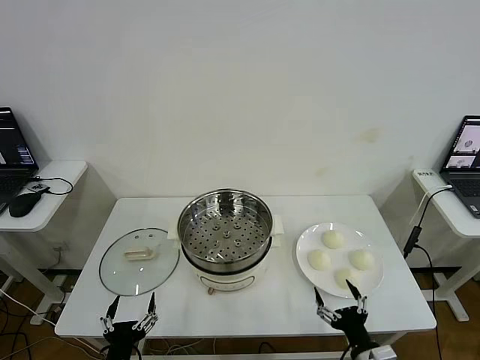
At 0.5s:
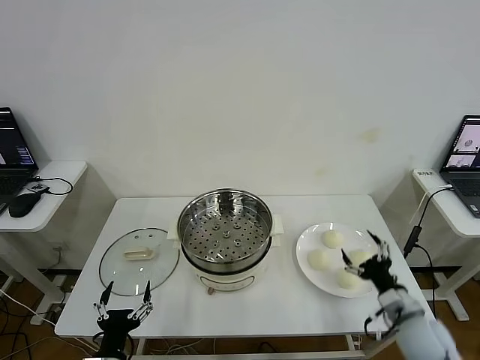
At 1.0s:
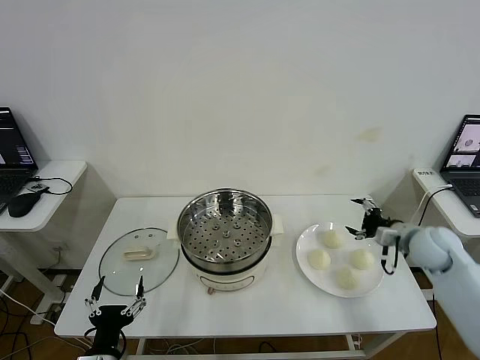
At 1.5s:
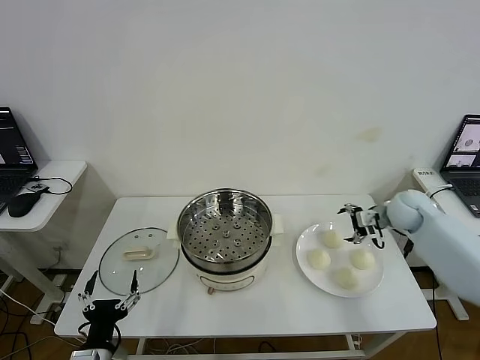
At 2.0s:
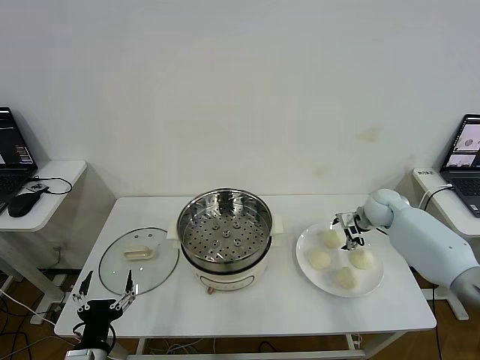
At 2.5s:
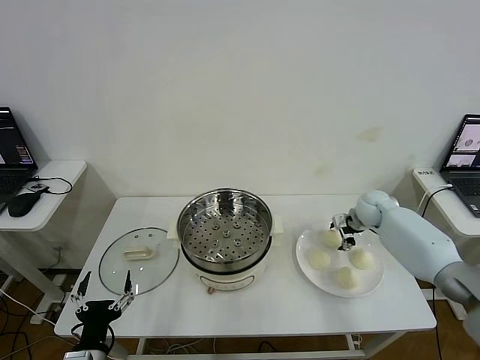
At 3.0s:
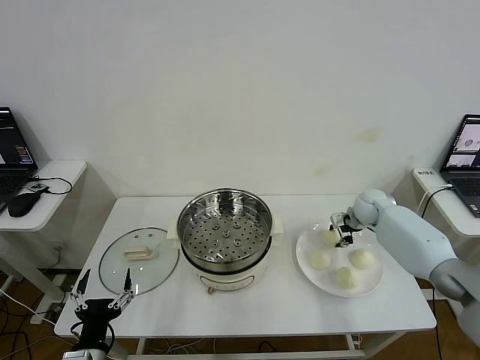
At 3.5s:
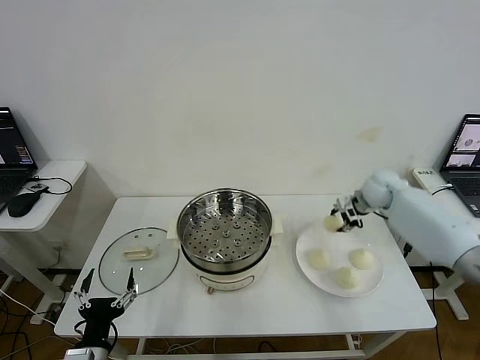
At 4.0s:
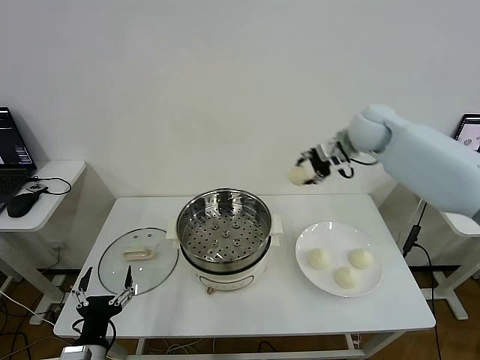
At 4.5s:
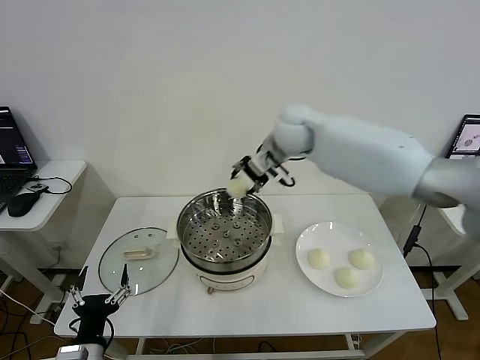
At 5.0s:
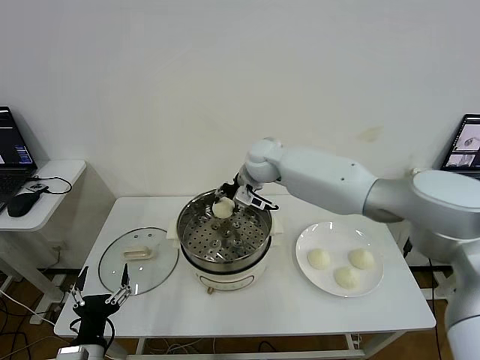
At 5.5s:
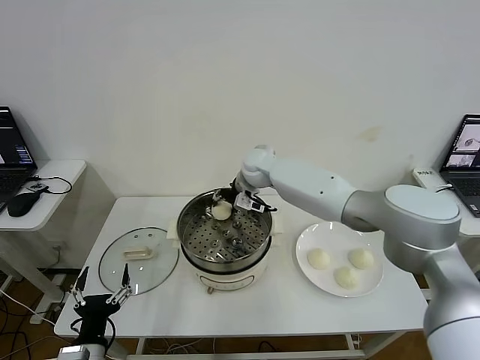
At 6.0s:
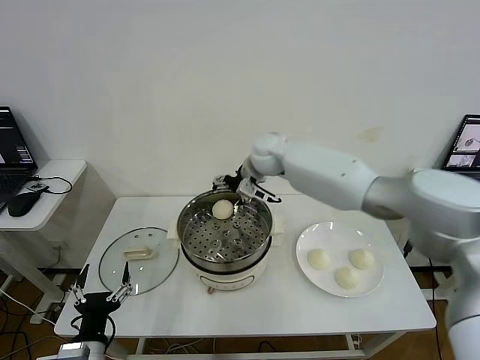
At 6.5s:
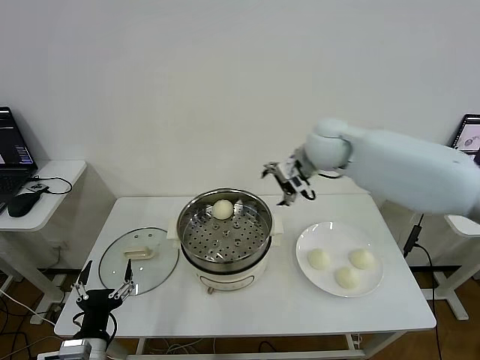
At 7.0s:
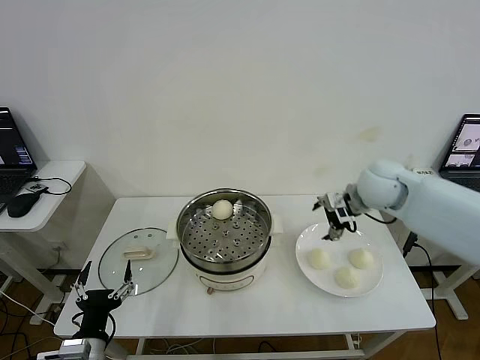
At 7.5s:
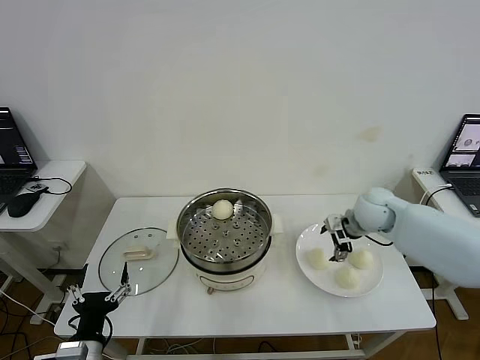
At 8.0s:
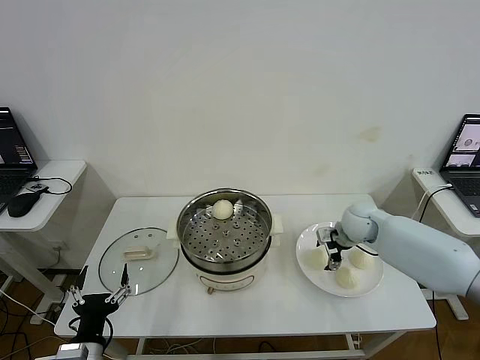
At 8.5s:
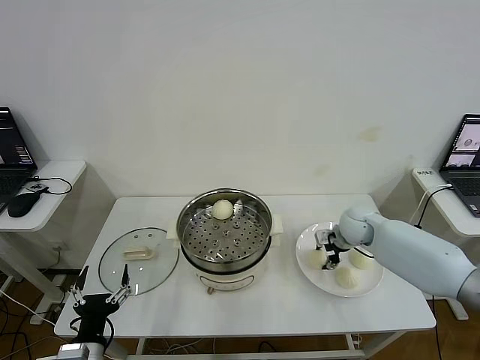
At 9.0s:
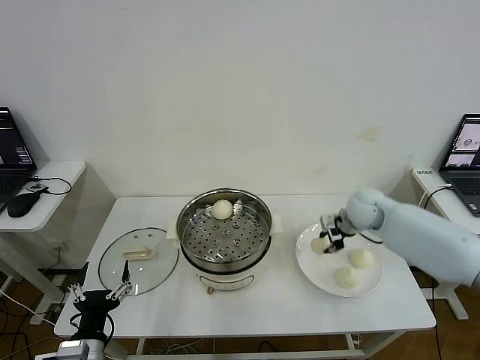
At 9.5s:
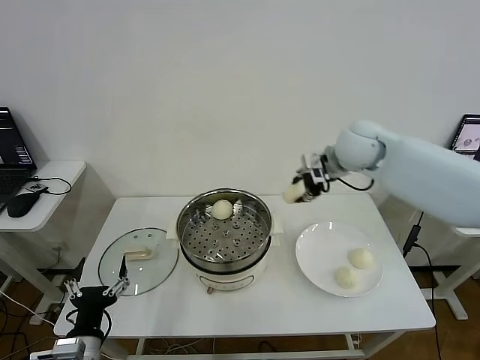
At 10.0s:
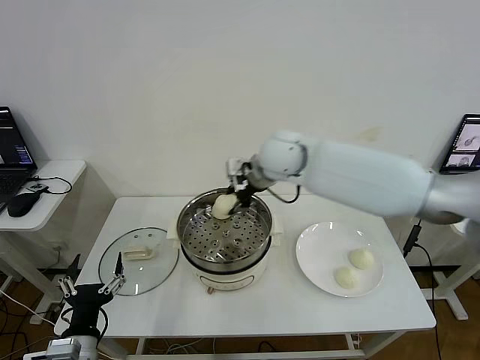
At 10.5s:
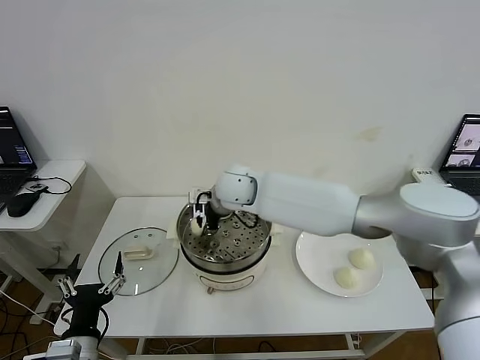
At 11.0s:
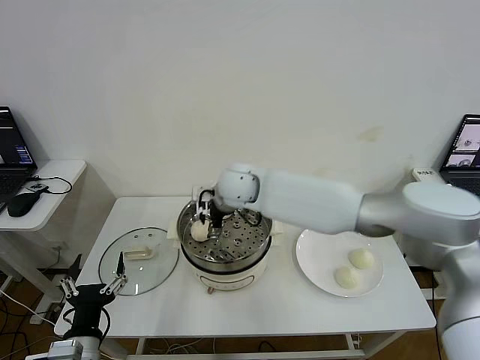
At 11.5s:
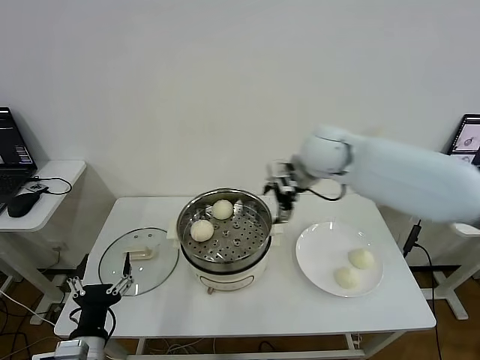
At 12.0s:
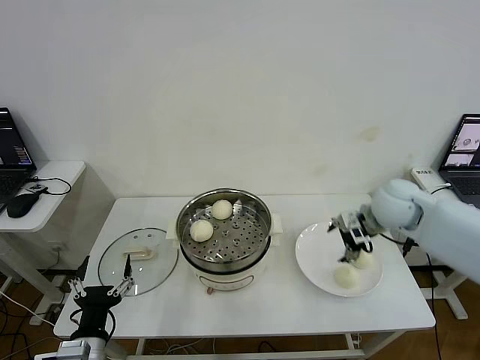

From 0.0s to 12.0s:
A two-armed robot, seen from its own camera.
Step, from 0.0s to 3.0s: Grasp the baozi in the plate with right gripper.
Step, from 3.5s to 5.5s: Place the baozi on the steamer with right gripper.
Step, from 6.0s to 8.5s: Grasp the baozi in the plate with right gripper.
Step, from 9.0s to 10.5s: Place the baozi on the steamer with right gripper.
From 2.0s to 4.0s: The right gripper is displaced upward and to the left by roughly 30 cm, and closes its fingers.
From 4.0s to 6.0s: The right gripper is displaced to the left and downward by approximately 15 cm, and opens.
From 6.0s to 8.0s: The right gripper is displaced to the right and downward by approximately 25 cm.
From 8.0s to 10.0s: The right gripper goes approximately 30 cm to the left and upward, and closes.
From 10.0s to 12.0s: The right gripper goes approximately 30 cm to the right, and opens up.

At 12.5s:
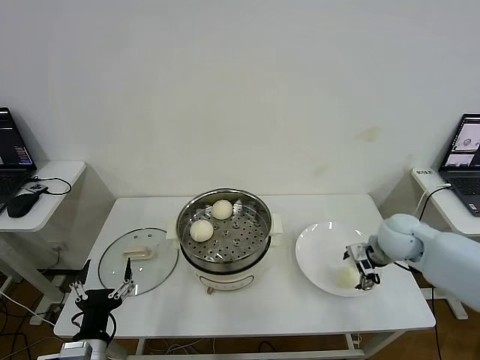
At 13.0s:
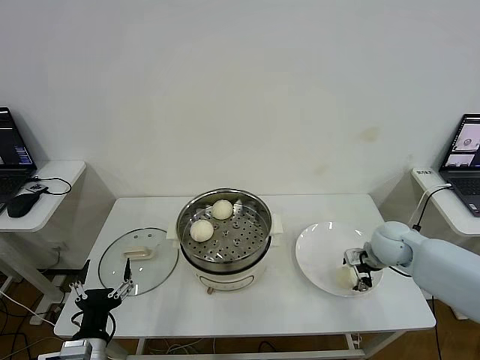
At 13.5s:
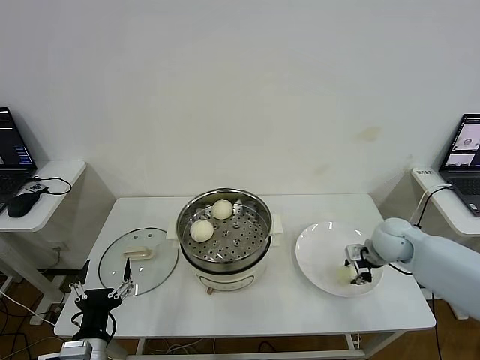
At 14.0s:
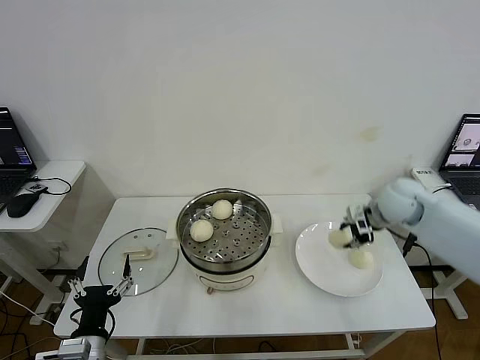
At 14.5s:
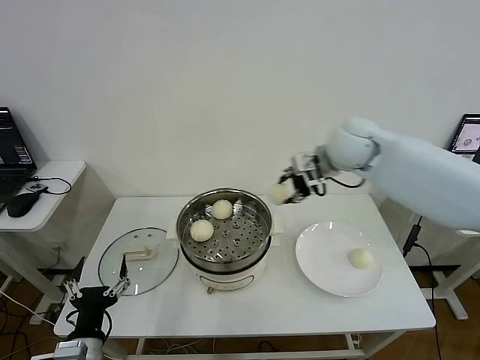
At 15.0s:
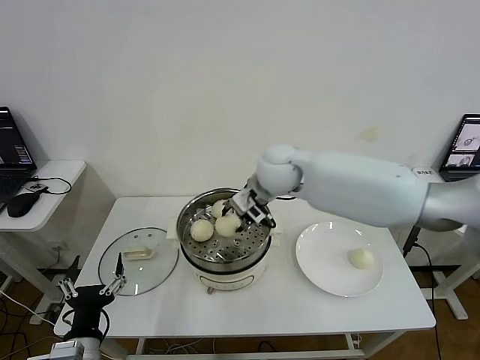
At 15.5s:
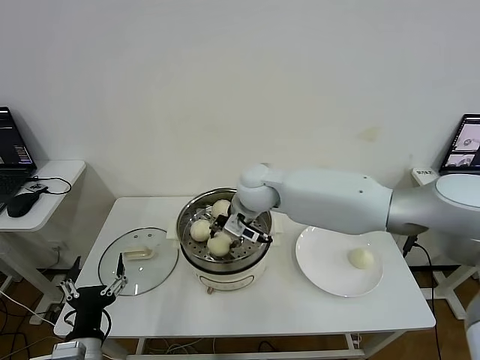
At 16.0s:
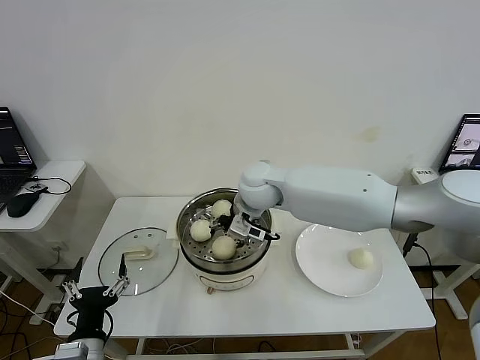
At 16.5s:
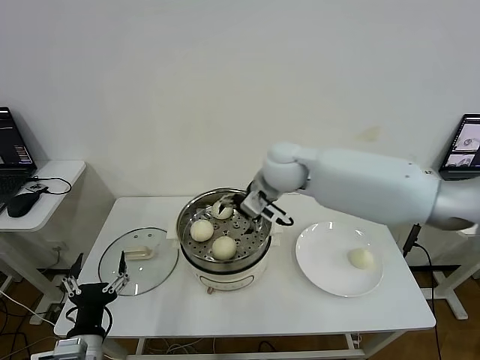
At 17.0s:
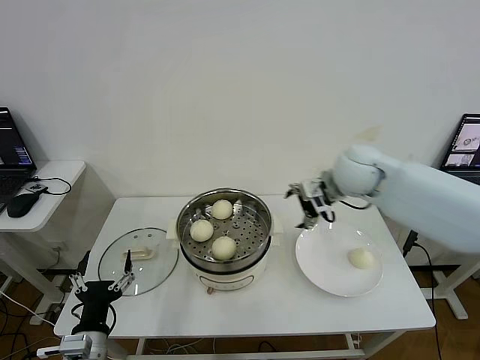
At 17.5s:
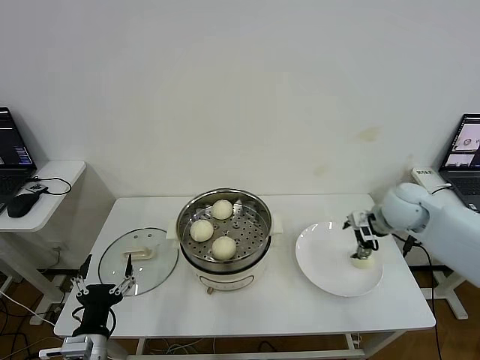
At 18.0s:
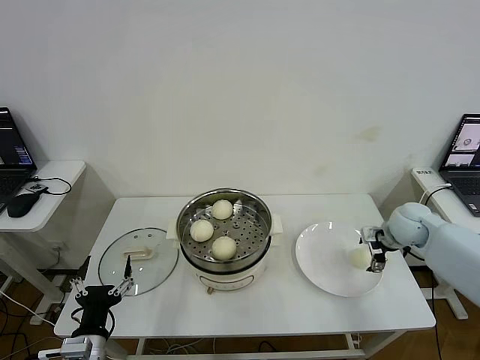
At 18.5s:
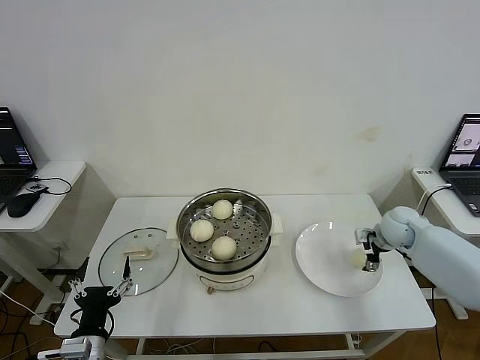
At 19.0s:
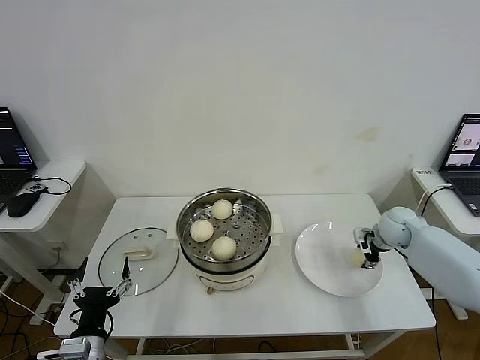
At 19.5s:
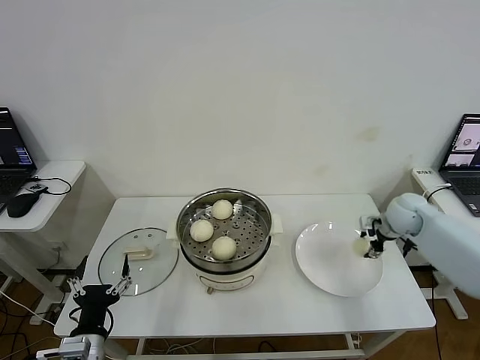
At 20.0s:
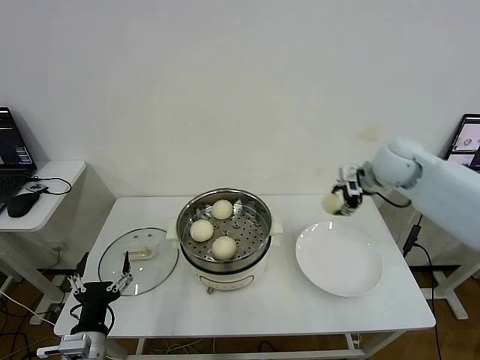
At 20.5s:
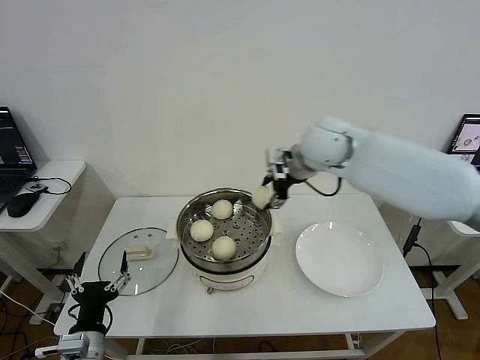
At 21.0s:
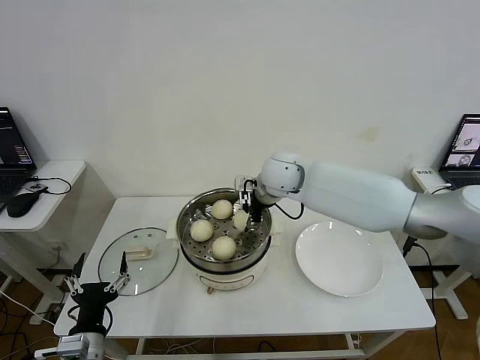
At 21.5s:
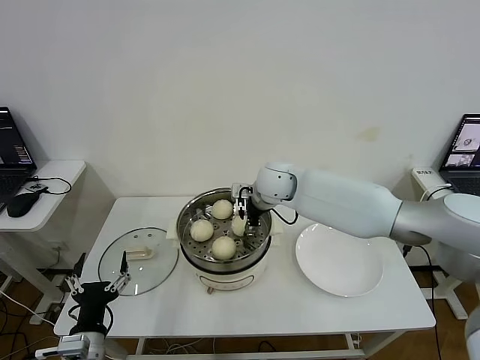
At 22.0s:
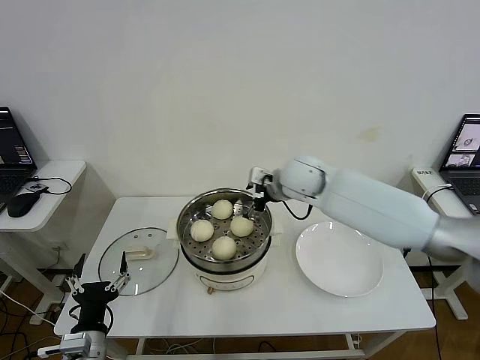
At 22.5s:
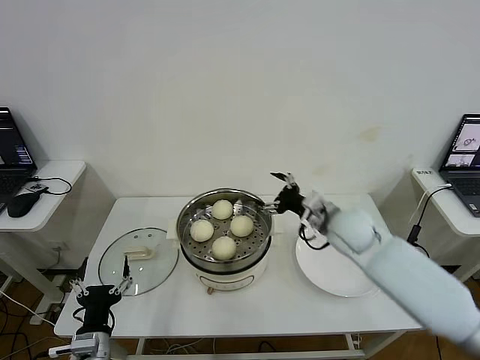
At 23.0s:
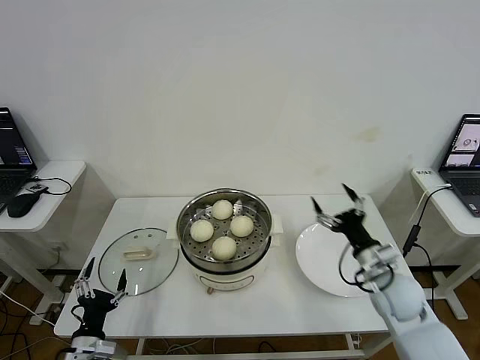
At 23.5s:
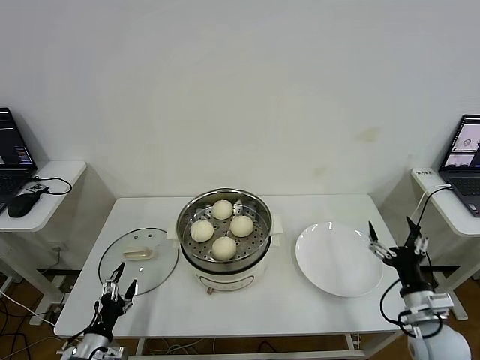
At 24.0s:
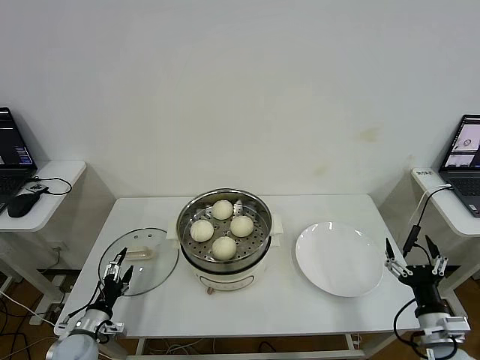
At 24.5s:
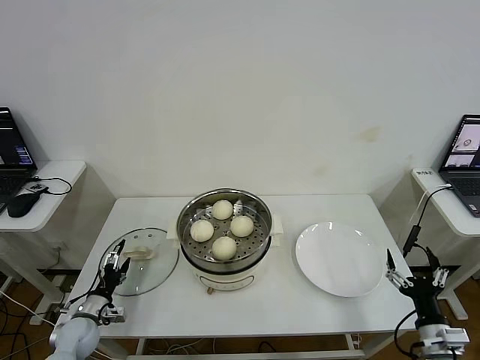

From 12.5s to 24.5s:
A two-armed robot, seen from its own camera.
Step, from 14.0s to 16.0s: Place the baozi on the steamer with right gripper.
Step, from 16.5s to 19.0s: Grasp the baozi in the plate with right gripper.
Step, from 19.5s to 21.5s: Place the baozi on the steamer with right gripper.
From 12.5s to 14.5s: The right gripper shifts approximately 30 cm upward, to the left and forward, and closes up.
From 14.5s to 16.5s: The right gripper is displaced to the left by some 5 cm, and opens its fingers.
From 16.5s to 18.5s: The right gripper travels to the right and downward by some 35 cm.
From 18.5s to 20.5s: The right gripper travels to the left and upward by some 35 cm, and closes its fingers.
From 20.5s to 22.5s: The right gripper heads downward, to the right and backward, covering roughly 20 cm, and opens up.
From 22.5s to 24.5s: The right gripper heads backward, to the right and downward, covering about 35 cm, while the left gripper travels forward, to the left and downward by roughly 20 cm.

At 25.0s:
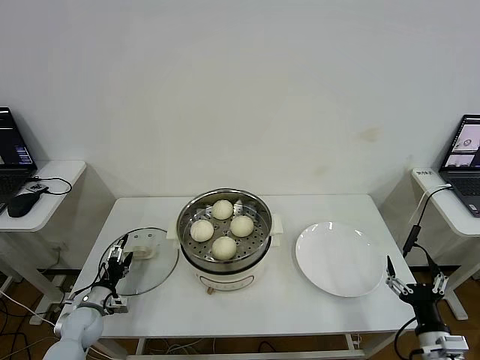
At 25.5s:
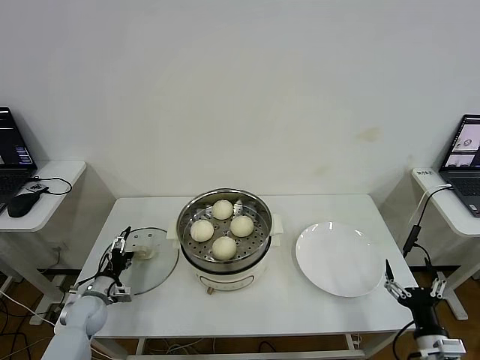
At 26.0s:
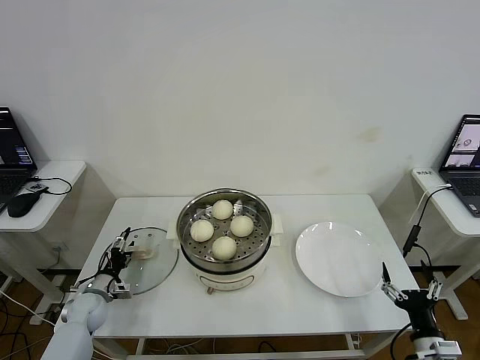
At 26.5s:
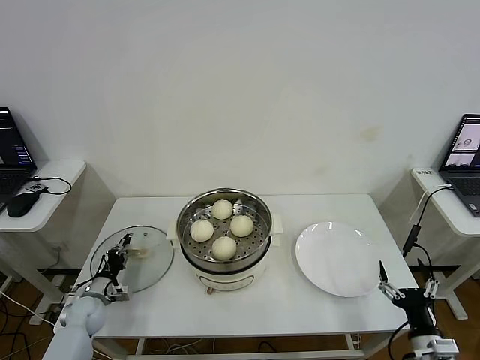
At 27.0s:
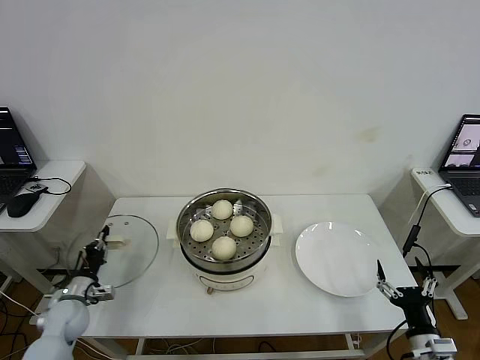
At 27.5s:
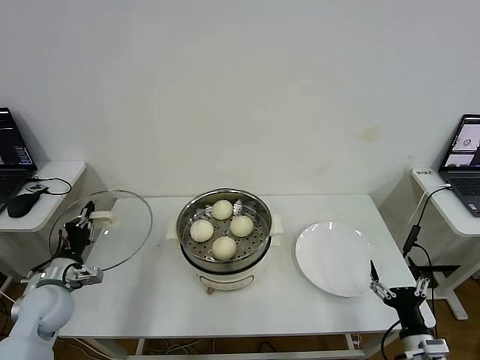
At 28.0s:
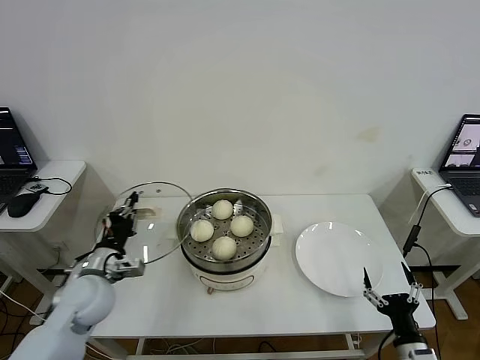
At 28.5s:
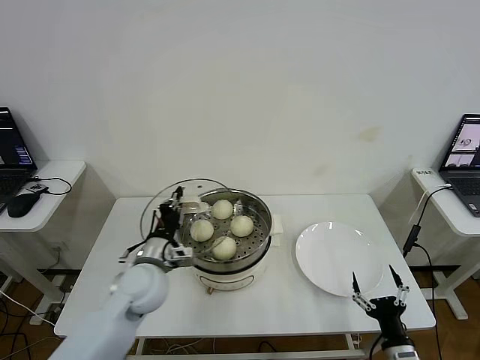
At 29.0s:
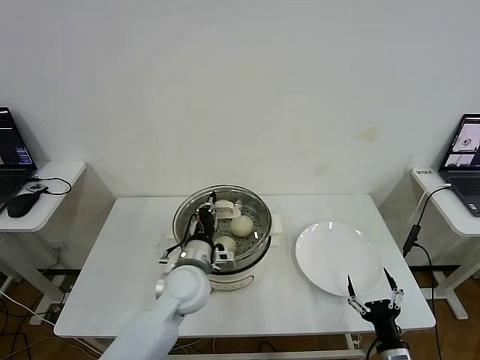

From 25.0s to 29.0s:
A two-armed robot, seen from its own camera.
From 25.0s to 27.0s: The left gripper closes up.
From 27.0s to 29.0s: The left gripper heads to the right and upward, covering about 35 cm. The right gripper is displaced to the left by approximately 5 cm.
